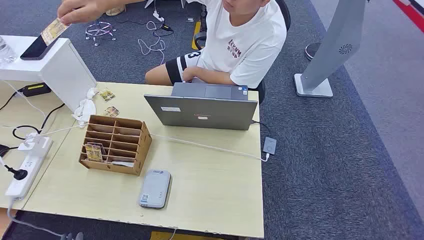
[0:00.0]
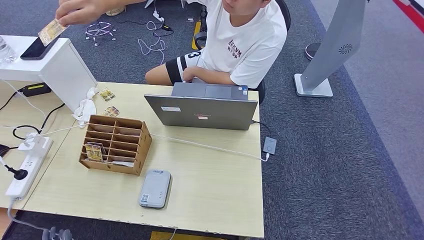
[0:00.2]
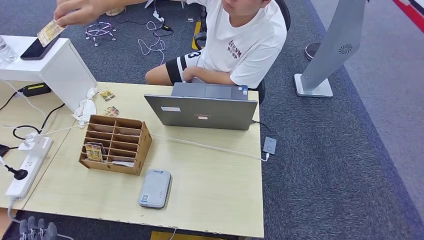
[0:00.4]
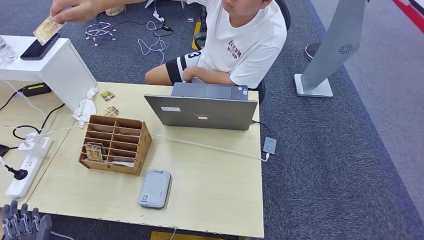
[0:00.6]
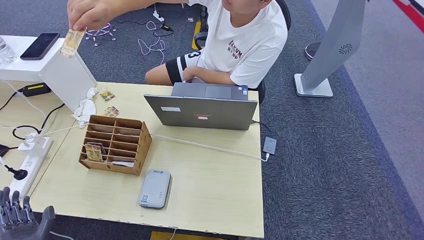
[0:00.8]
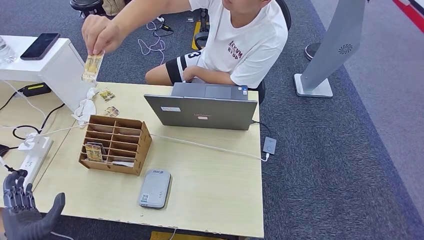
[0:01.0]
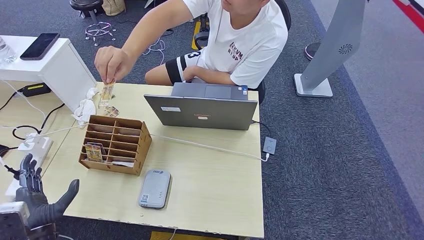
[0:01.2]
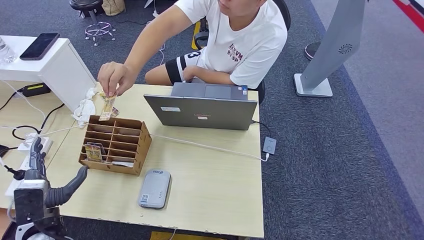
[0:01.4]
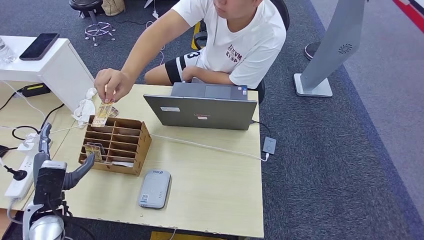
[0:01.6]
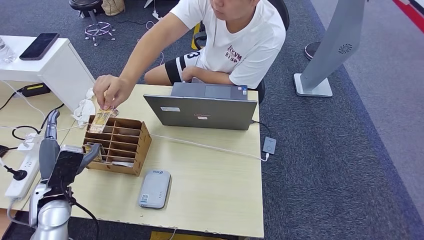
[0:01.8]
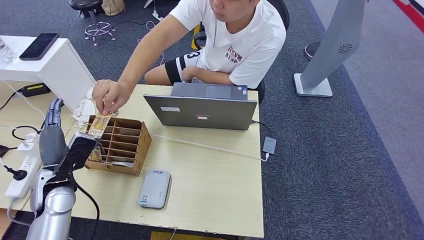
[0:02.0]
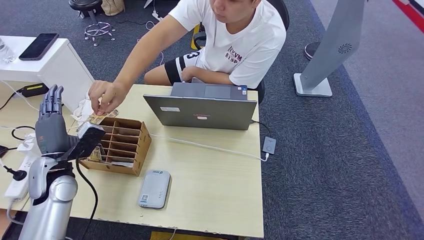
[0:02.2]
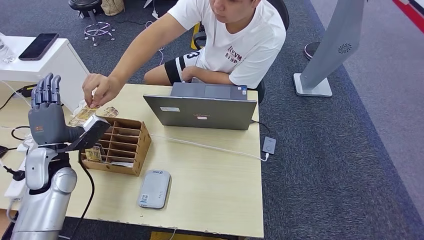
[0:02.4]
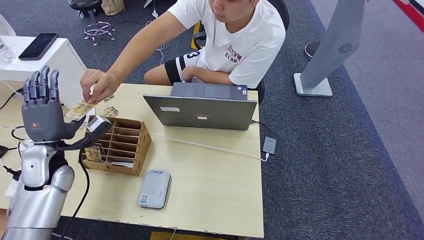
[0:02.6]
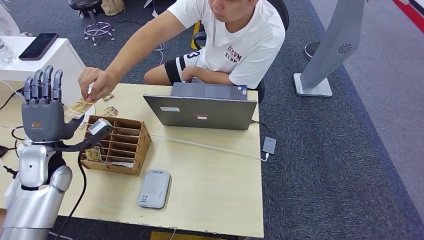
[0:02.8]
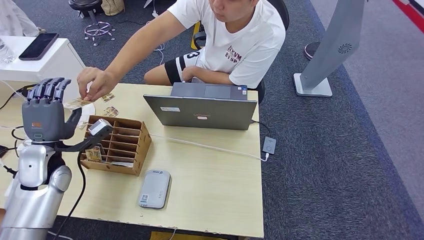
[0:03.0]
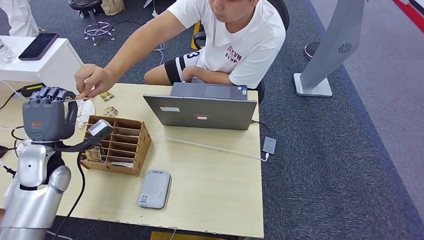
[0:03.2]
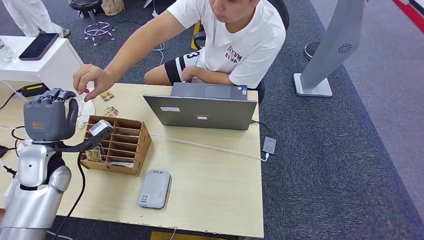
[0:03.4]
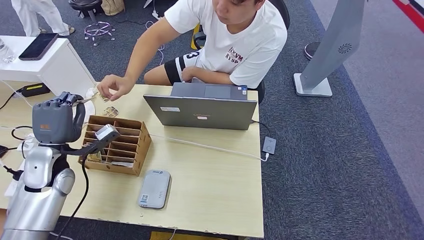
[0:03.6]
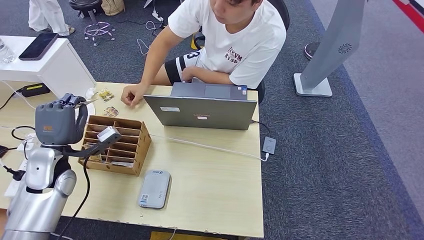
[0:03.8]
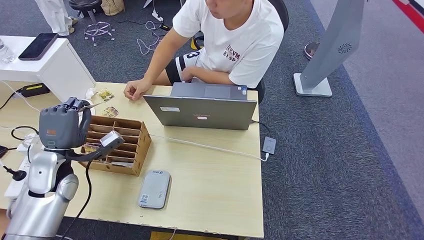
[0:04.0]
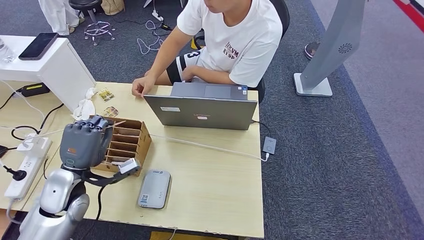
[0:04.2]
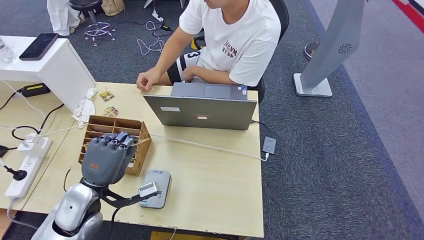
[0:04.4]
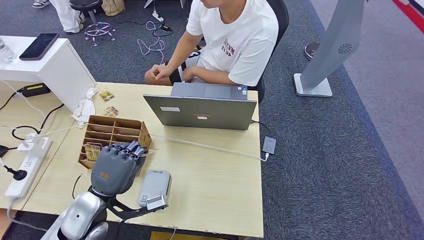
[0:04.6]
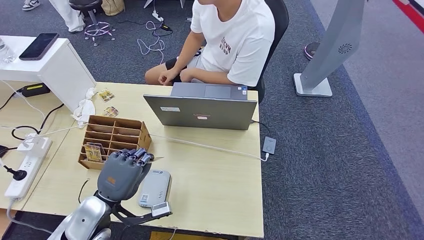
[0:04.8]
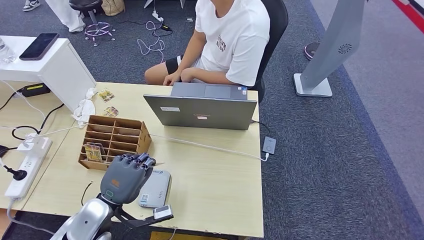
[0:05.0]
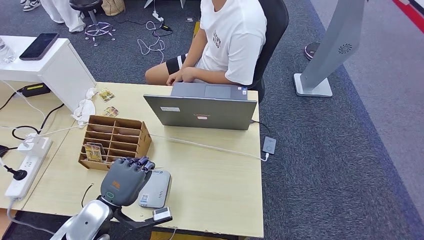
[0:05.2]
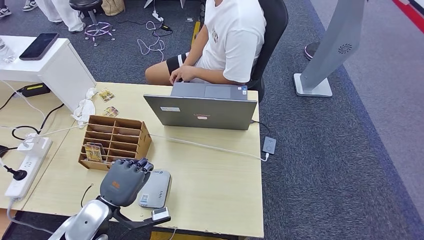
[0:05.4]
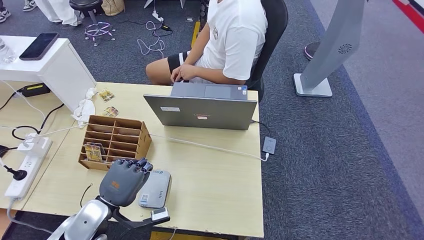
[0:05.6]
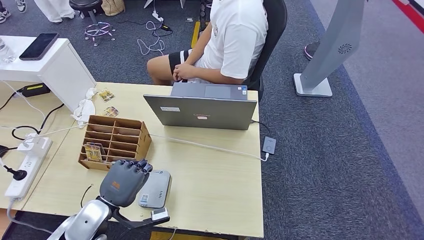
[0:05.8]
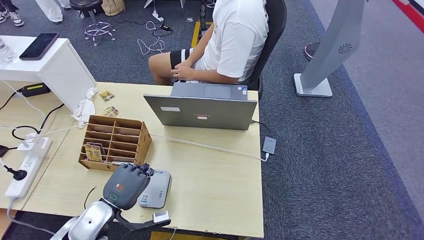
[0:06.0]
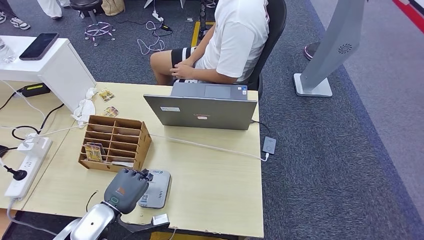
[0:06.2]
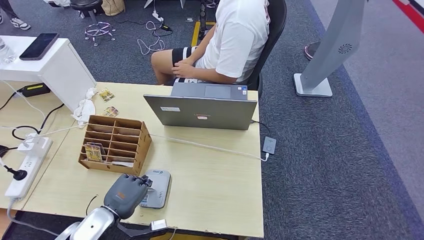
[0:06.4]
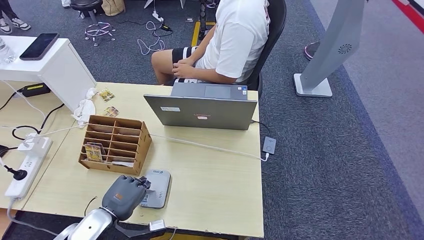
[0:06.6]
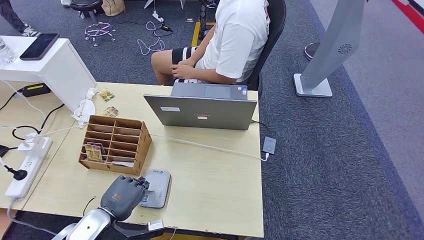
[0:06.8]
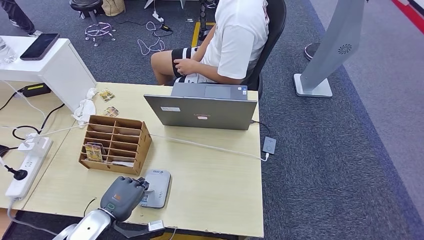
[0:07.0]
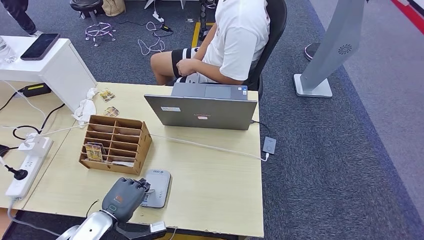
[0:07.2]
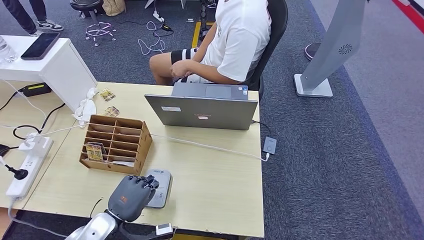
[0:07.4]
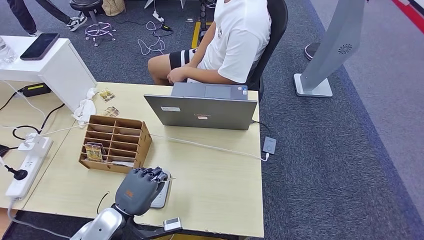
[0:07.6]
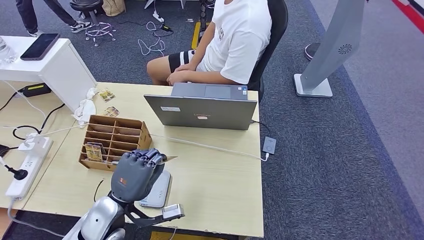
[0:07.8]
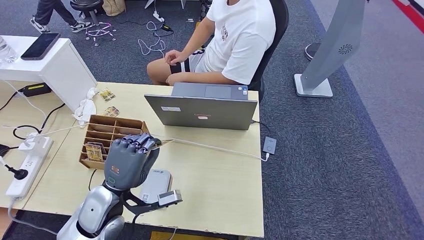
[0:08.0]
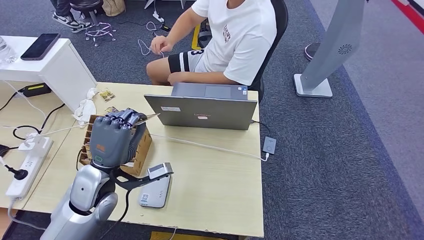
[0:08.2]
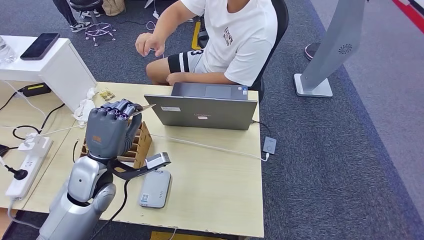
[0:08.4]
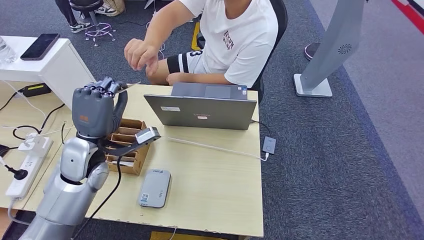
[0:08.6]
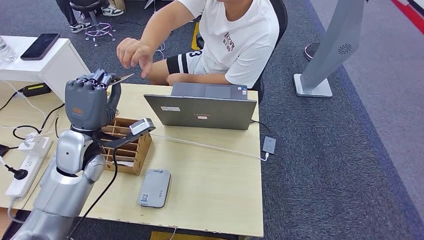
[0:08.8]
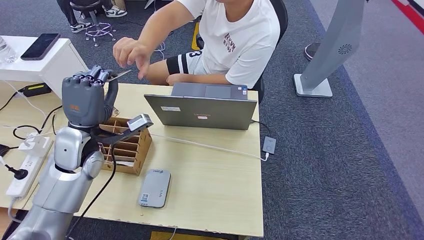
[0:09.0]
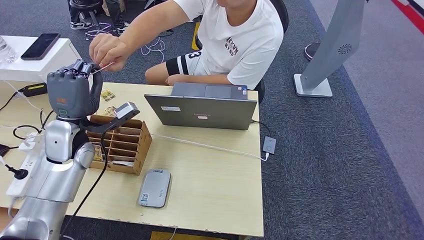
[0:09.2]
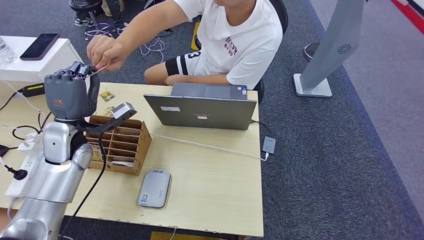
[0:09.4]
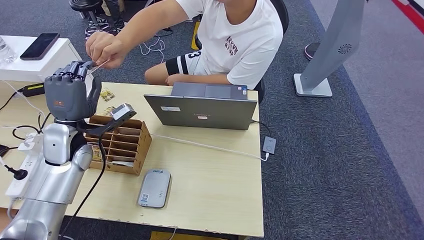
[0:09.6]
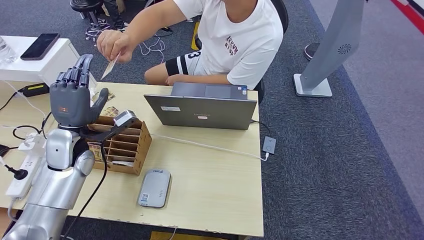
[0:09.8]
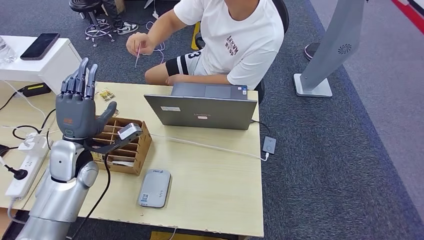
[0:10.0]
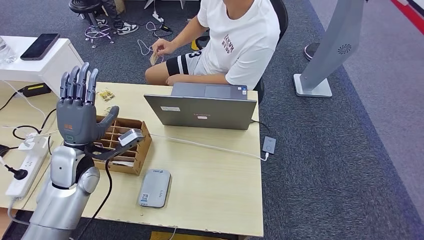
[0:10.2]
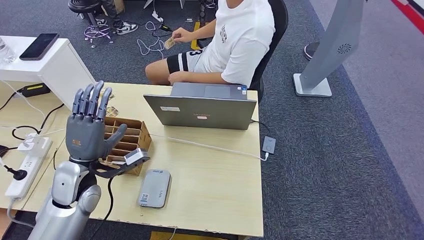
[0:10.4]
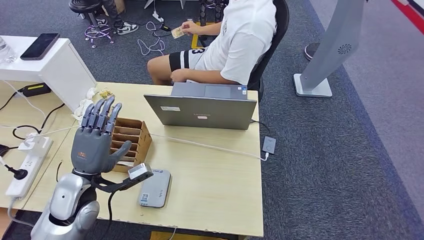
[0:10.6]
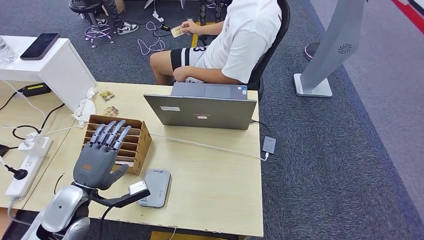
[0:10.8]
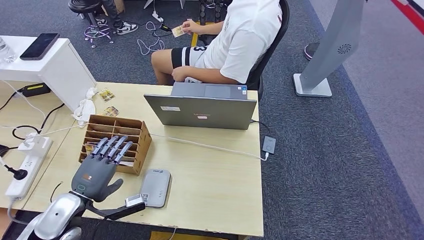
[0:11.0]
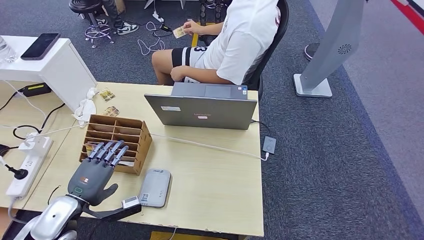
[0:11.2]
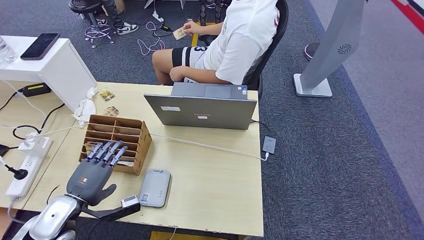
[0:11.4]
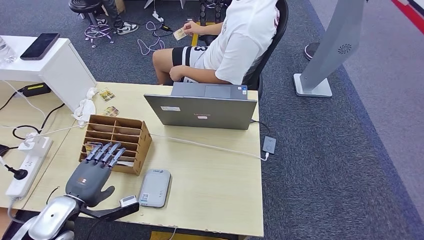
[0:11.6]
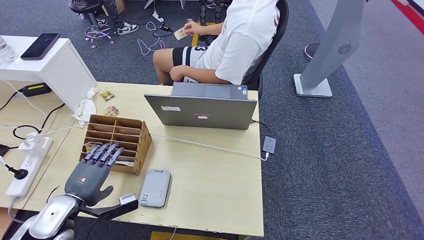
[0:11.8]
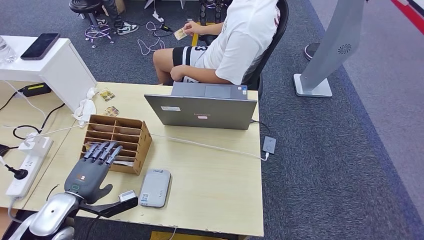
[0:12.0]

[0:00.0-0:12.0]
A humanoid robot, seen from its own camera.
Step, 0:00.0 to 0:03.6: Take the ID card from the person's hand.
Step, 0:03.8 to 0:07.2: Place the ID card on the card reader.
Step, 0:07.4 to 0:09.6: Hand the ID card to the person.
0:01.6 to 0:03.0: The left hand is displaced forward and upward by approximately 15 cm.
0:04.4 to 0:06.0: The left hand shifts by roughly 5 cm.
0:06.0 to 0:07.6: The hands make only small movements.
0:09.0 to 0:10.4: The left hand moves backward and downward, approximately 10 cm.
0:10.4 to 0:12.0: The left hand goes some 10 cm backward and downward.

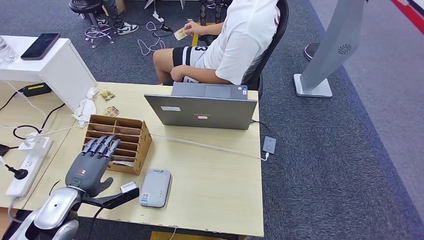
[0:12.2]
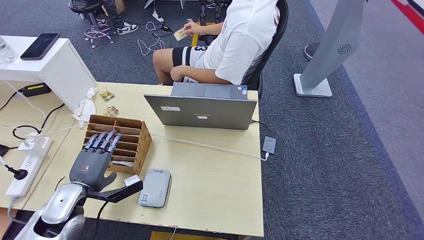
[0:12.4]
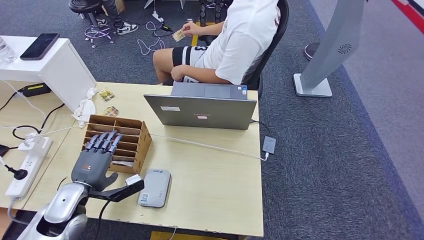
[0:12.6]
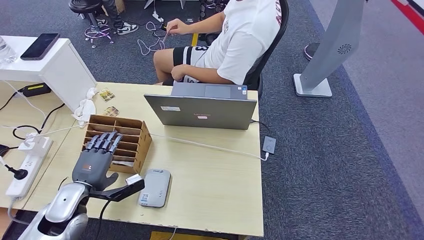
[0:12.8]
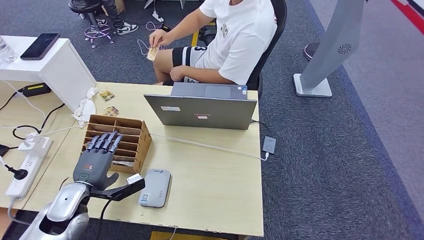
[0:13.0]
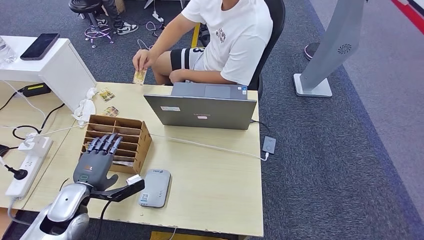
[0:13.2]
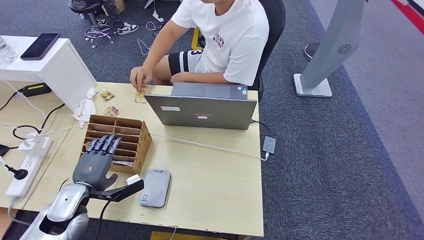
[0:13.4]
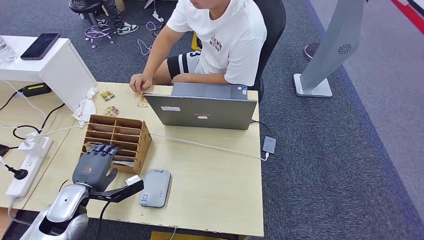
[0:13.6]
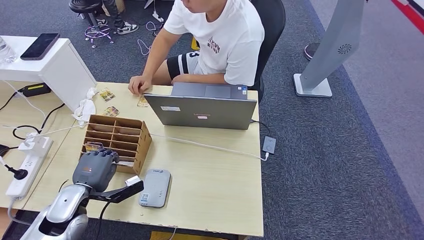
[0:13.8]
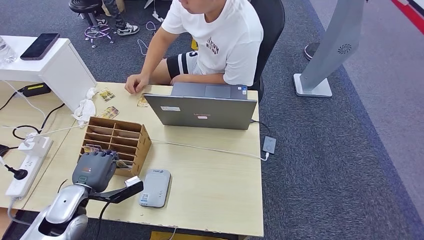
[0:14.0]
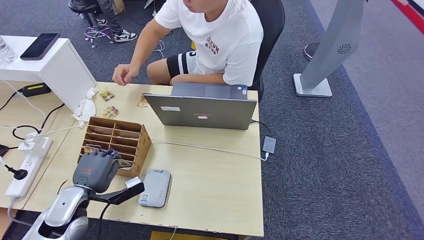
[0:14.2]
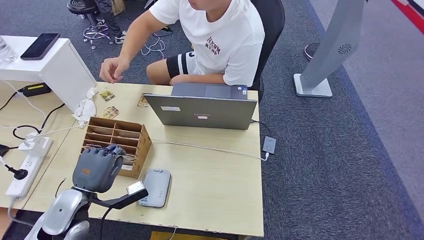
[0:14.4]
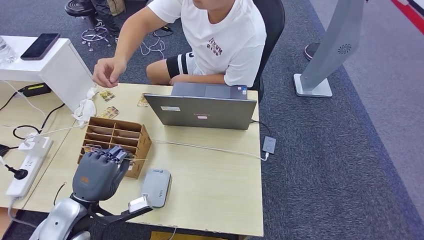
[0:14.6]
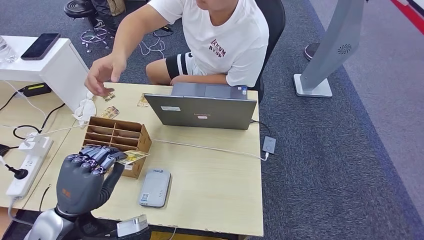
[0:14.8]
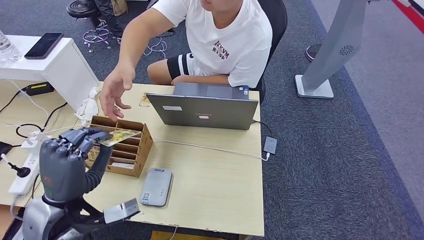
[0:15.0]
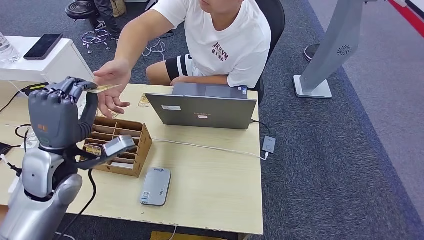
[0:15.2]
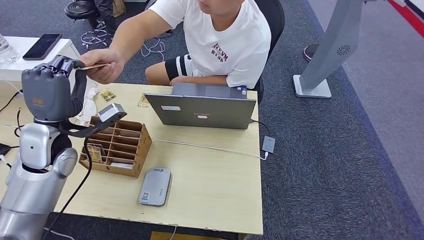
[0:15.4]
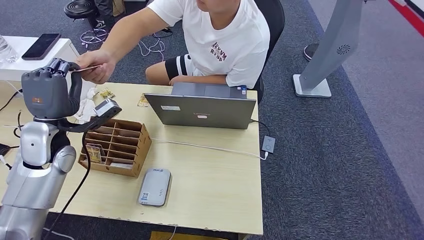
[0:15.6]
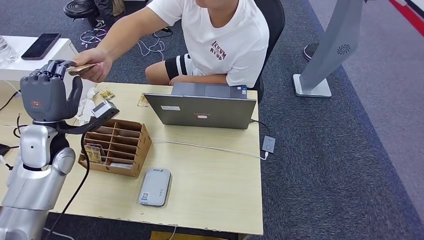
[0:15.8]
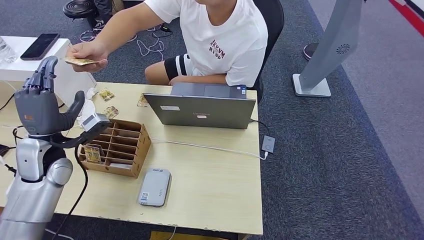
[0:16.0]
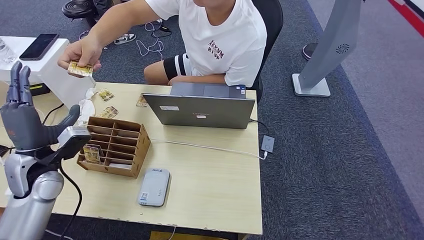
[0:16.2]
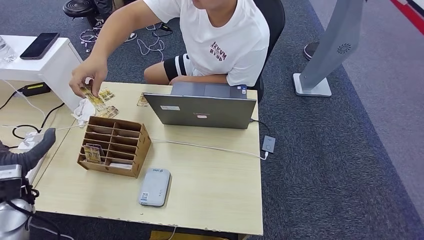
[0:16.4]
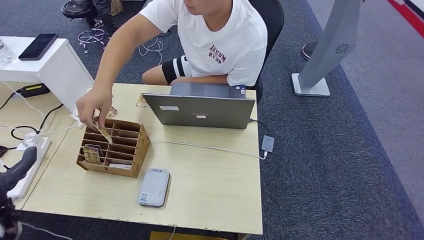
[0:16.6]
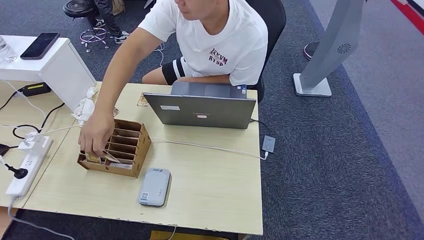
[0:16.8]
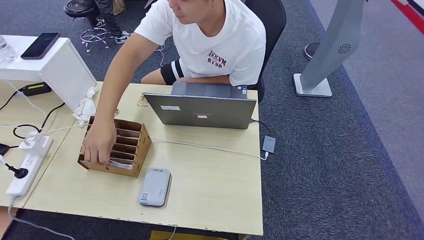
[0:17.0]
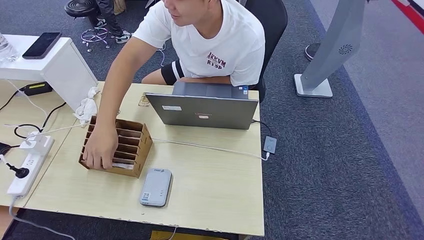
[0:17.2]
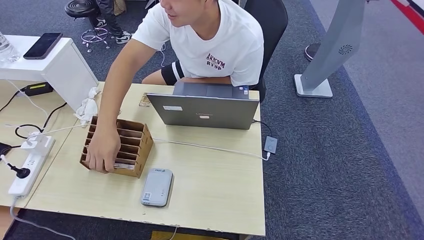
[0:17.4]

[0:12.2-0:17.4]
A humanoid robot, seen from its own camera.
Step, 0:12.2 to 0:14.4: Pick up the room key from the key card box.
Step, 0:14.6 to 0:17.2: Hand the room key to the person.
0:12.2 to 0:14.0: There are only small adjustments of the hands.
